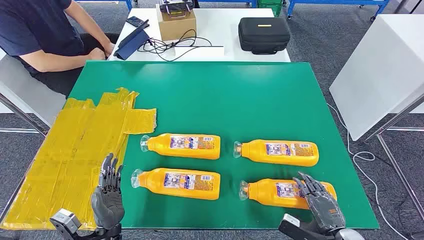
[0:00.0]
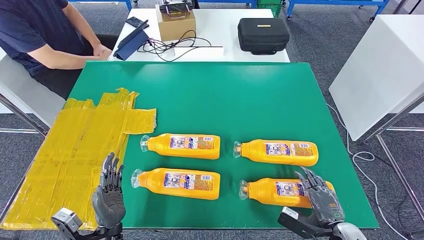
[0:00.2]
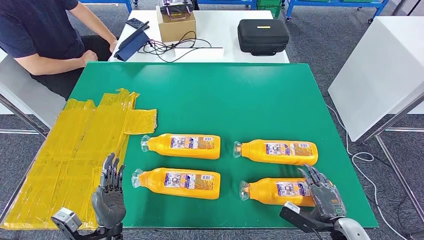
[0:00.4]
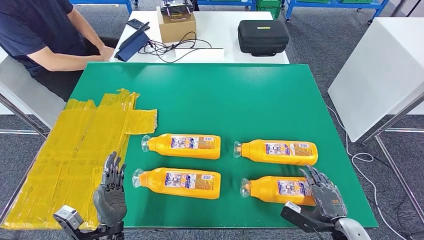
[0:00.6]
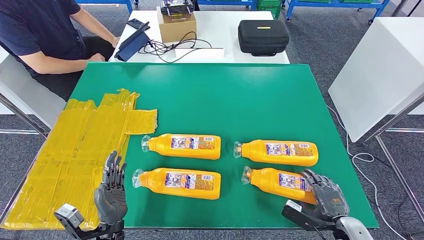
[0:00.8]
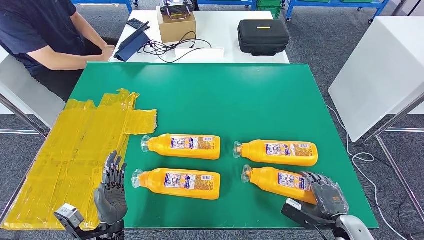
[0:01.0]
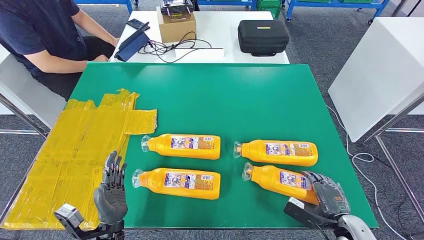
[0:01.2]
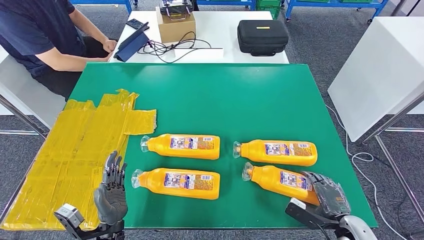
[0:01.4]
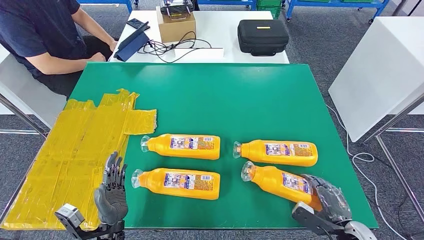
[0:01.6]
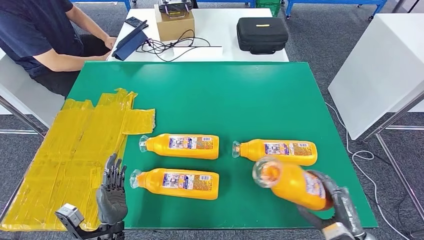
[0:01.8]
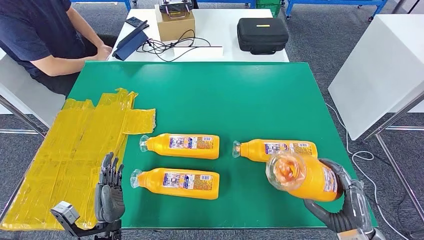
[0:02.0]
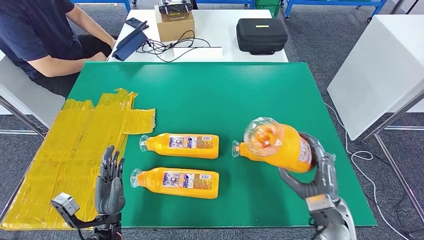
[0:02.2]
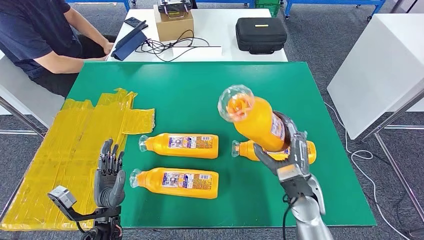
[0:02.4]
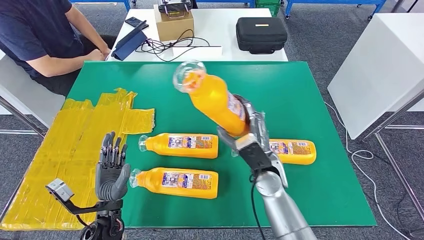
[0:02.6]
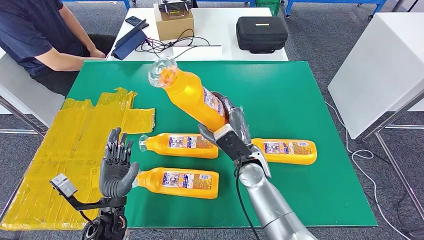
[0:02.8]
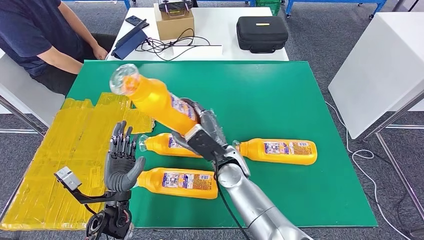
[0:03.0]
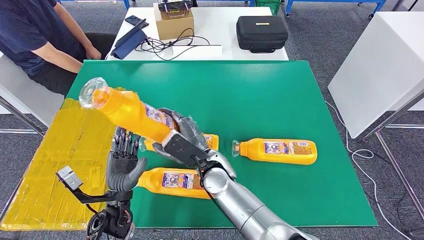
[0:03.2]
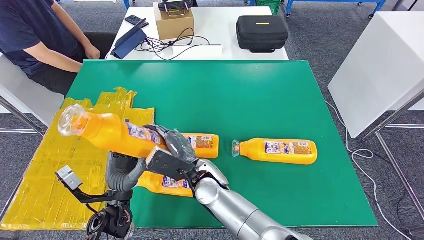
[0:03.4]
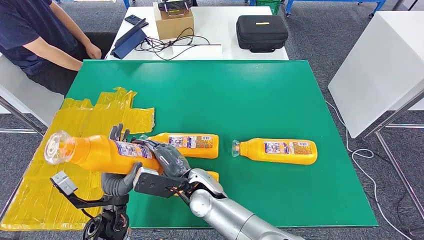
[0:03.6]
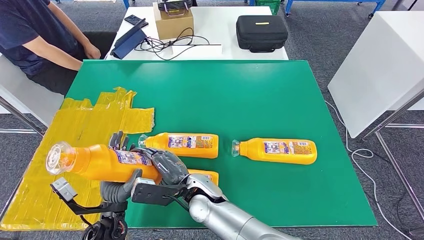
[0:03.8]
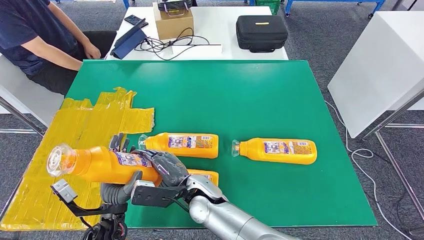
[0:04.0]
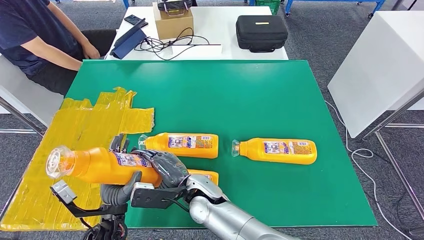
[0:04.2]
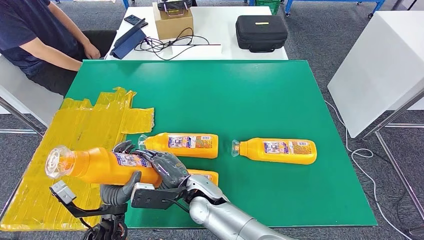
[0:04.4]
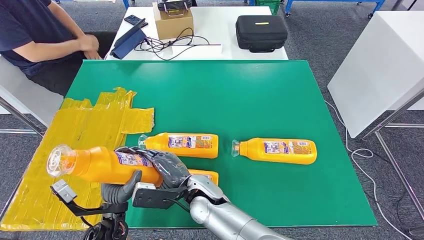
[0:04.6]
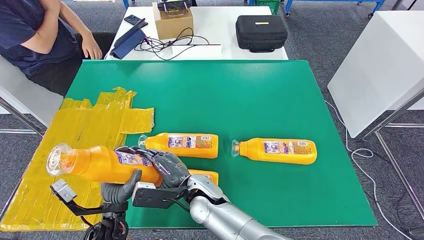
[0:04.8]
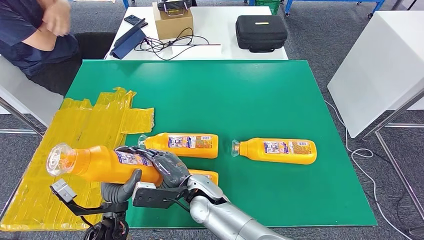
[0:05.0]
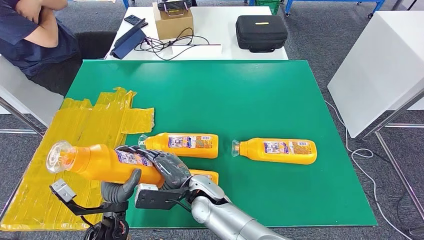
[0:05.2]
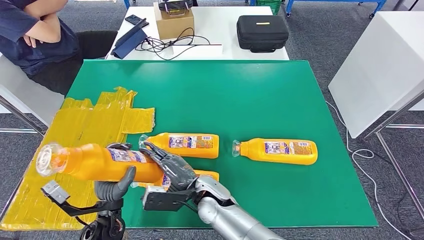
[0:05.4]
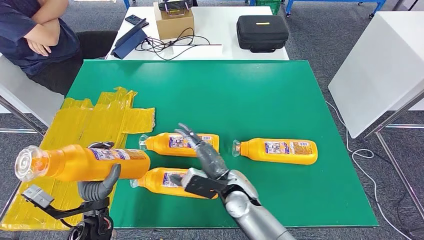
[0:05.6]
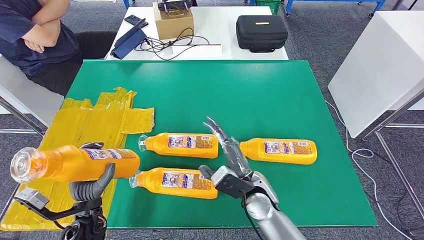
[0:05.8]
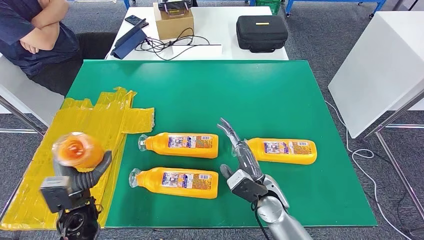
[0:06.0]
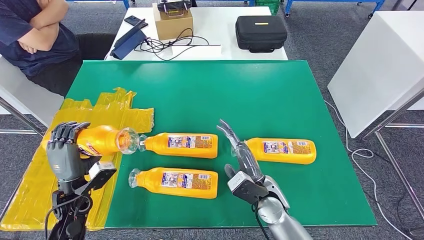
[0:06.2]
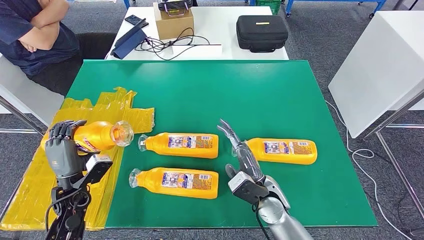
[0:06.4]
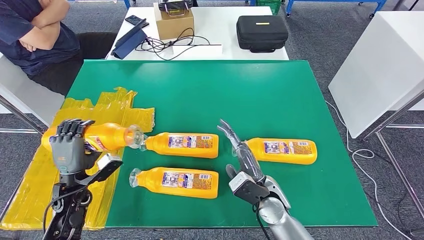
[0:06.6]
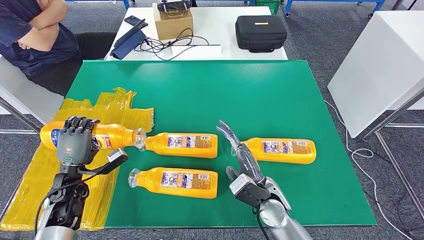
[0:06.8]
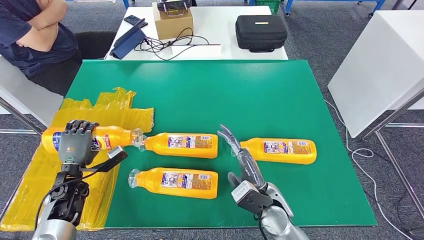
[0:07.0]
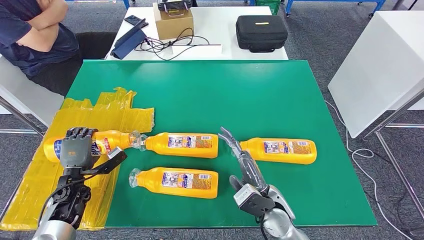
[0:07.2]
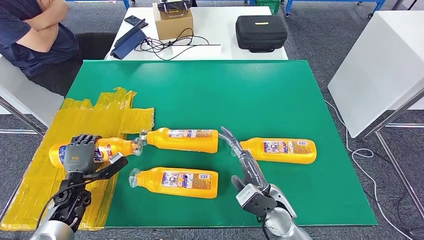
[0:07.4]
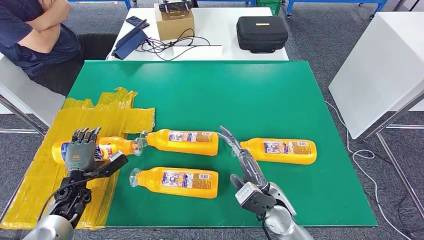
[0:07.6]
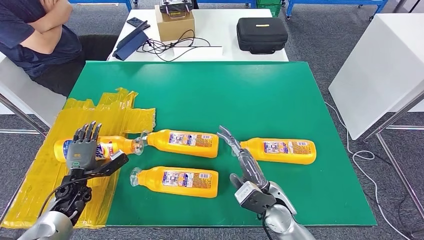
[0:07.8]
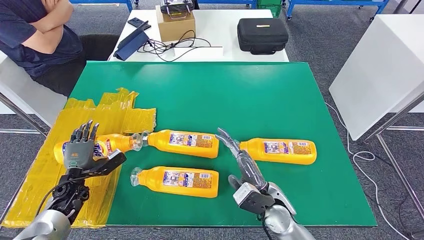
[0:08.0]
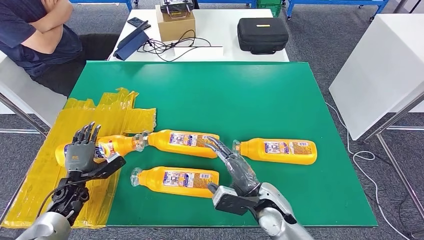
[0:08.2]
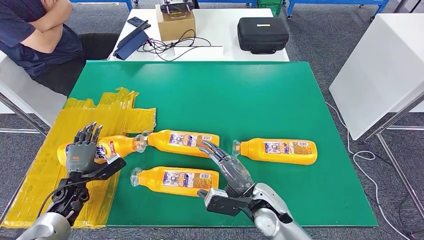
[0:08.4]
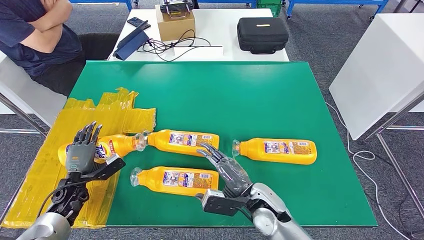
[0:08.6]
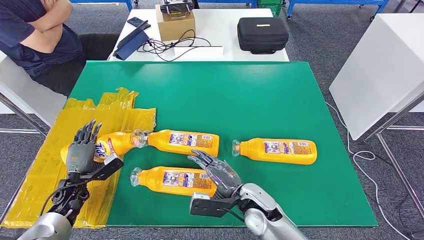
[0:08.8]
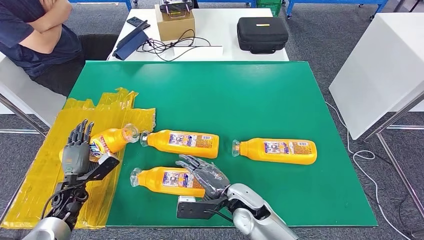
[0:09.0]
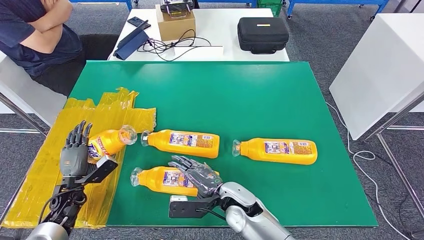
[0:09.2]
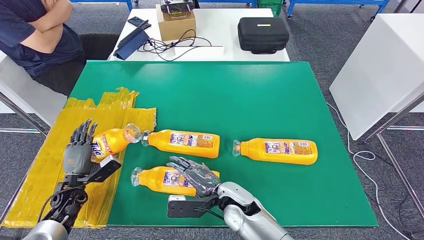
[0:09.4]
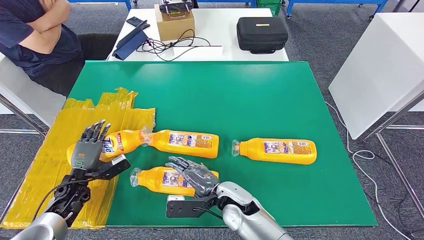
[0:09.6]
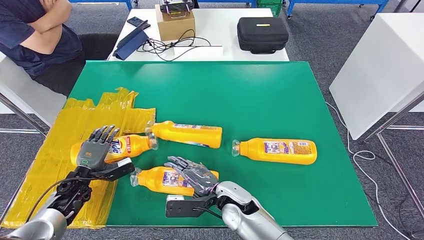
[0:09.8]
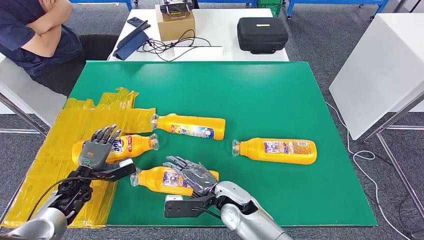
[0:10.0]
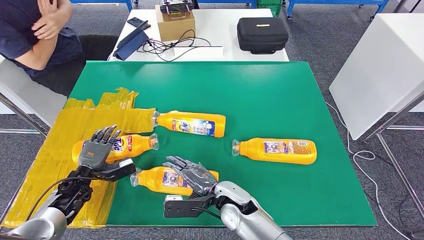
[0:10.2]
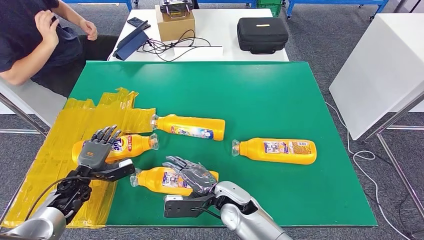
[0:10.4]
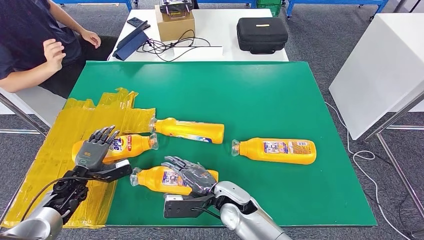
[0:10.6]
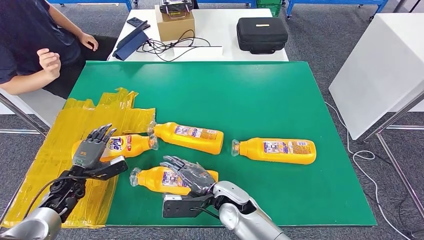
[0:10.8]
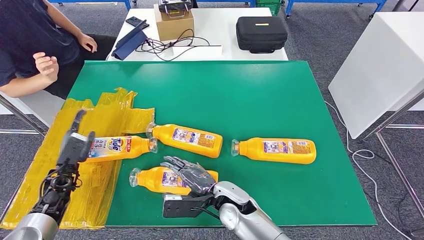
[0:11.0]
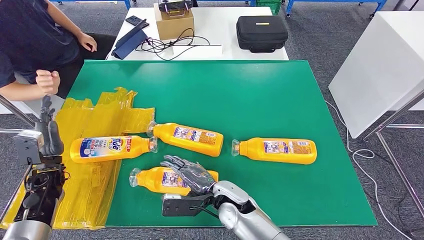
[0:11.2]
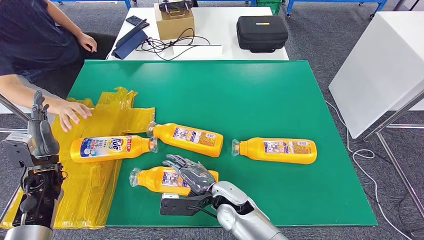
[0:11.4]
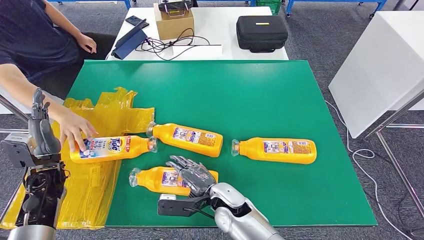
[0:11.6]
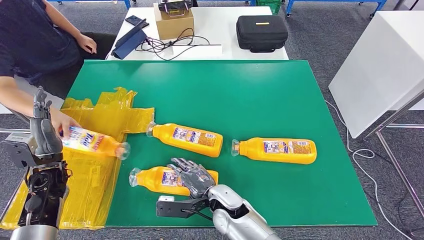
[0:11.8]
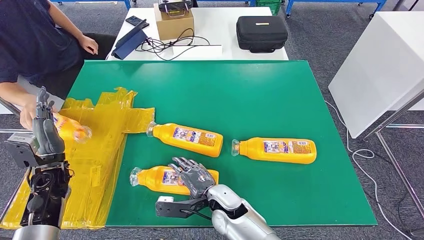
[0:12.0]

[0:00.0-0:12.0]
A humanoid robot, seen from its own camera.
Step, 0.0 to 4.6 s: Take the fast-moving consumer goods bottle from the table.
Step, 4.8 to 11.2 s: Flip the fast-moving consumer goods bottle to the front side.
4.4 to 6.0 s: The left hand goes about 10 cm to the left, while the right hand is displaced to the right by some 15 cm.
6.0 to 7.6 s: The left hand heads to the left, forward and downward, covering about 15 cm.
7.6 to 9.0 s: The right hand shifts about 5 cm to the left.

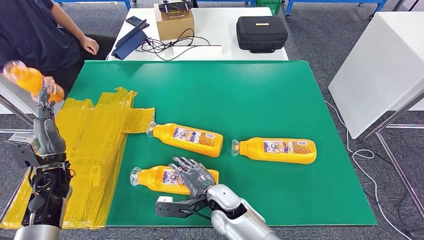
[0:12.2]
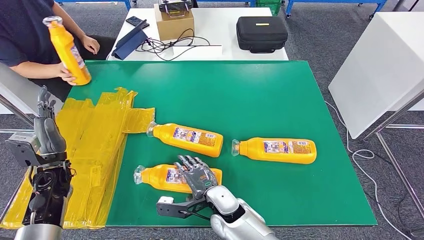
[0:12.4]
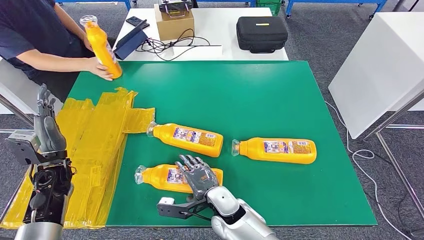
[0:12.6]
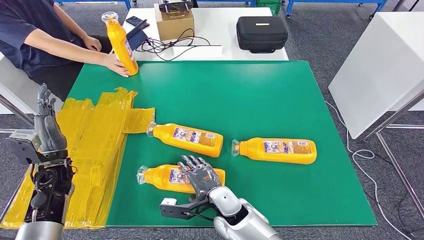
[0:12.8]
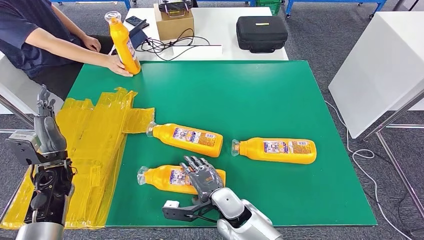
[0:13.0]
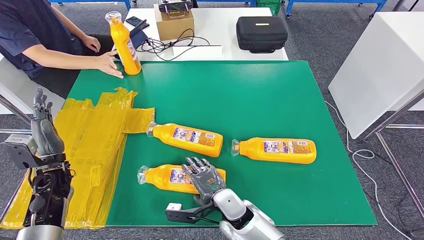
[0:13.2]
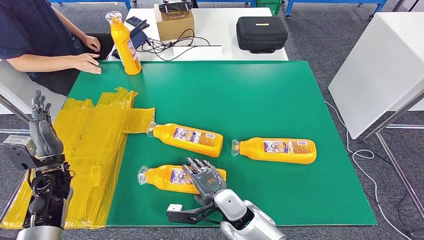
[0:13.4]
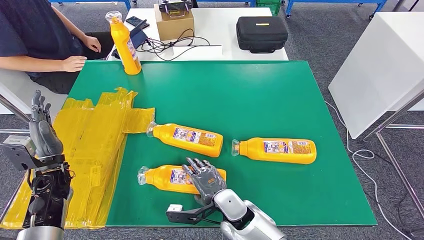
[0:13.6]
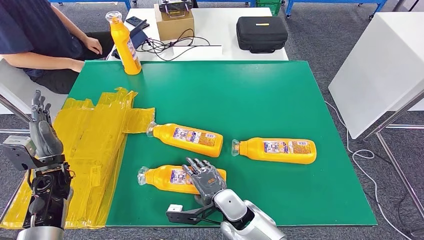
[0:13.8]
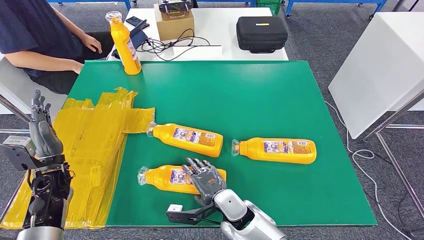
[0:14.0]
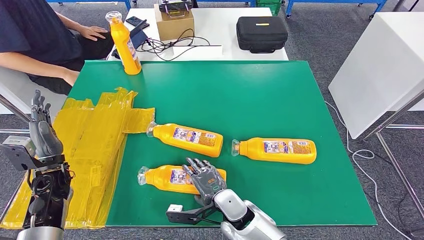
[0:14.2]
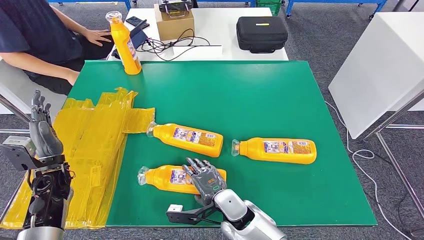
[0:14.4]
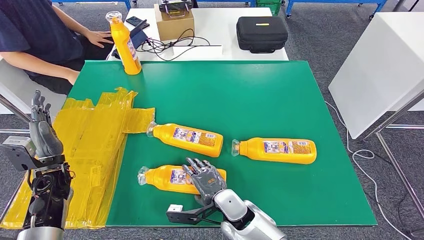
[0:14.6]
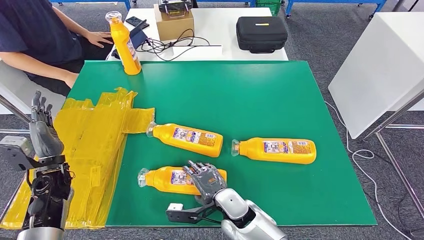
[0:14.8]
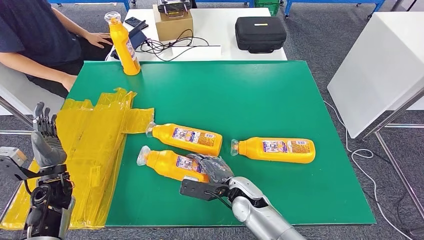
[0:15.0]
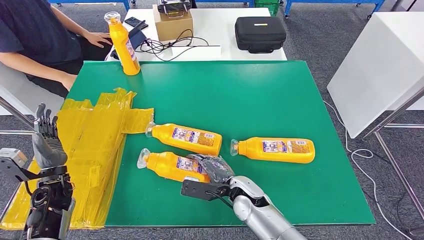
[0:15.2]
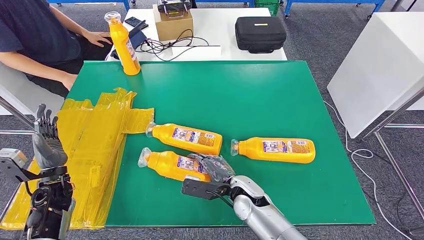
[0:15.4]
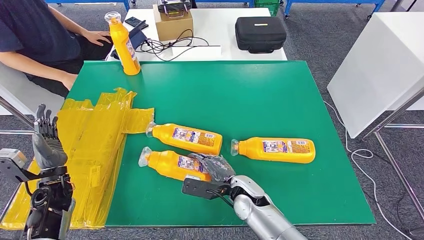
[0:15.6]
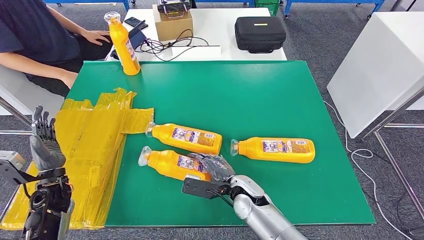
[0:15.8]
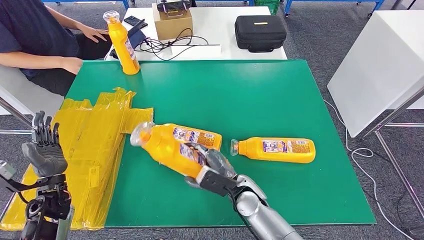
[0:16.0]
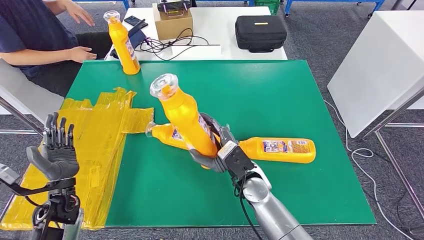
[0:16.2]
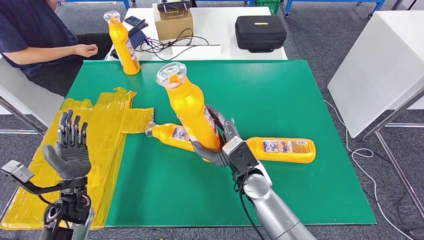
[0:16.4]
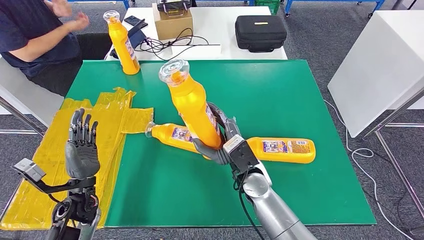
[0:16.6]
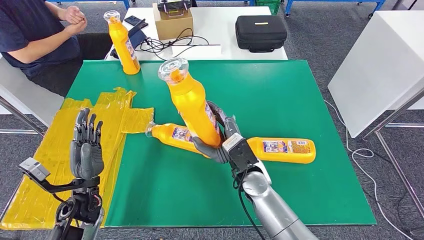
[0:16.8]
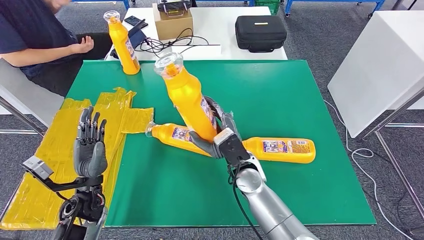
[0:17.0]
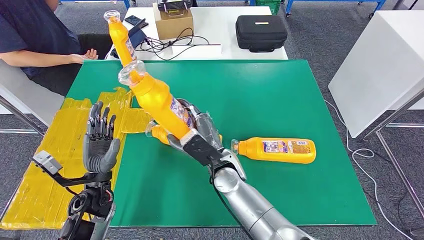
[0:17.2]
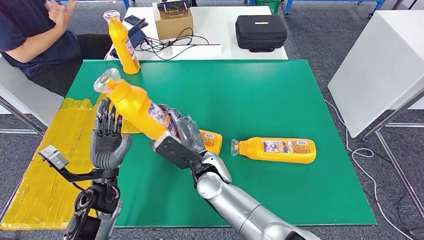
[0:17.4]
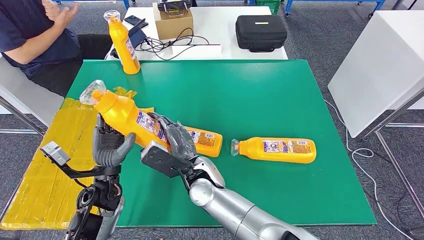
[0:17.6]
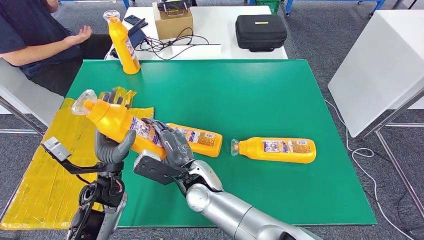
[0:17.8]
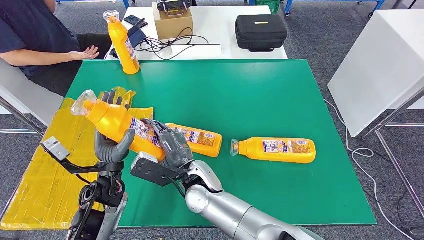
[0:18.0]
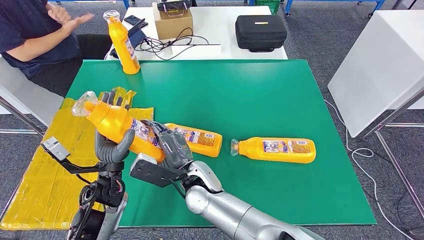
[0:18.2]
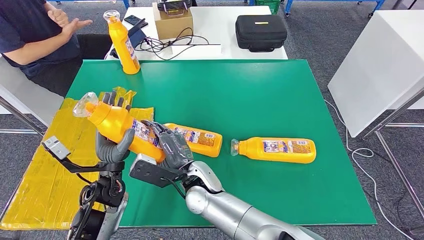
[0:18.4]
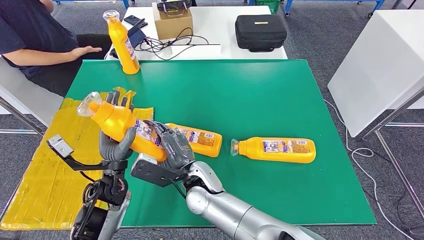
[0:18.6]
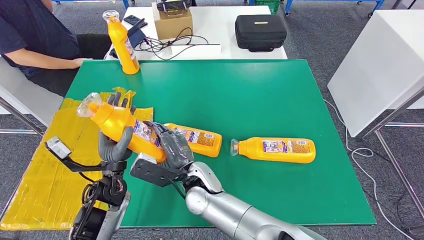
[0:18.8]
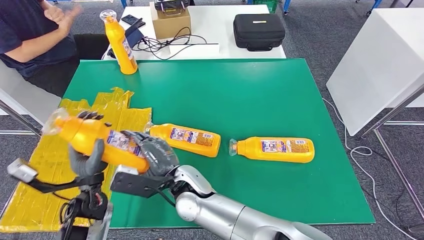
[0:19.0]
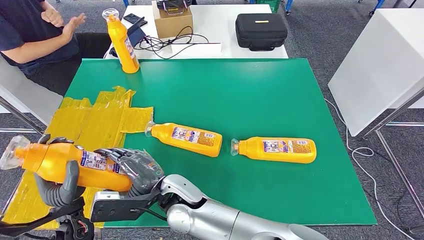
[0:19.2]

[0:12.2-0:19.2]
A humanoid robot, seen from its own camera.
Step, 12.2 to 17.6 s: Pick up the fast-moving consumer goods bottle from the table.
12.2 to 13.6 s: The hands make only small movements.
